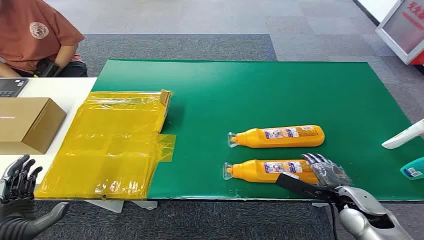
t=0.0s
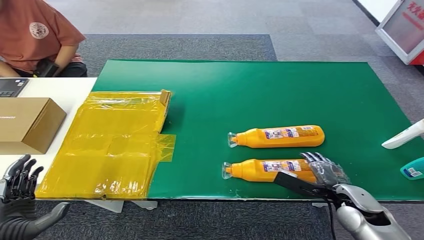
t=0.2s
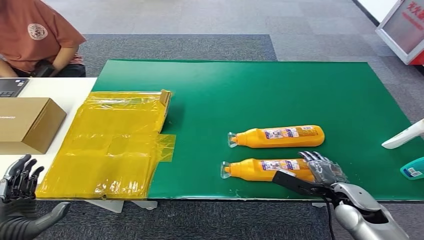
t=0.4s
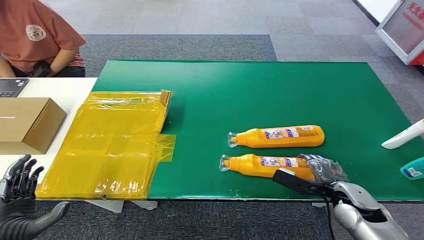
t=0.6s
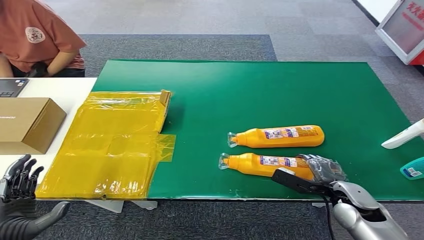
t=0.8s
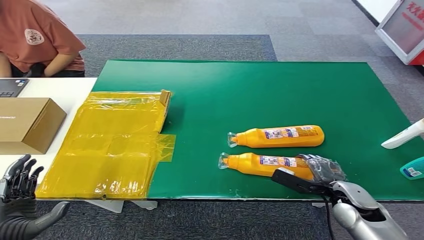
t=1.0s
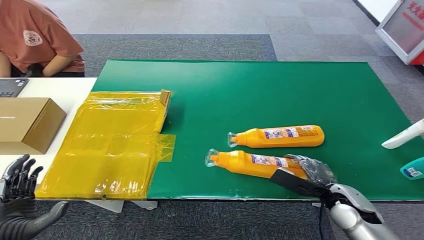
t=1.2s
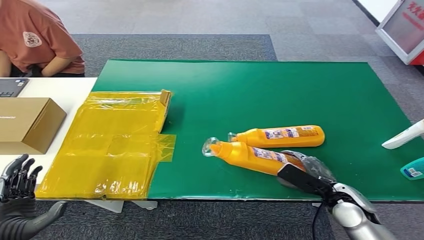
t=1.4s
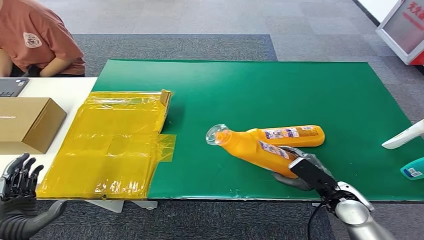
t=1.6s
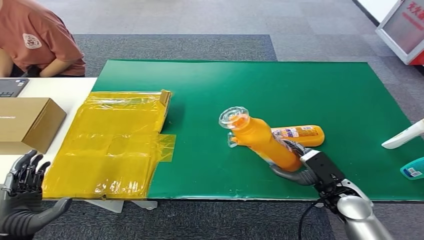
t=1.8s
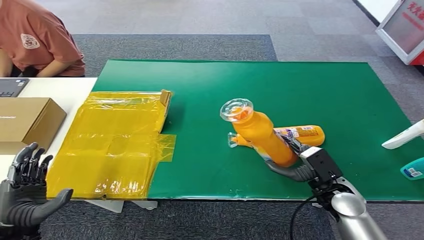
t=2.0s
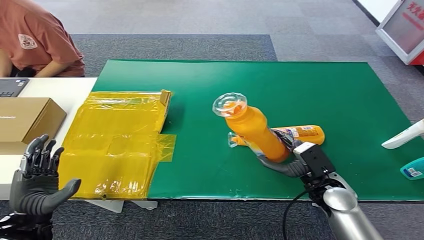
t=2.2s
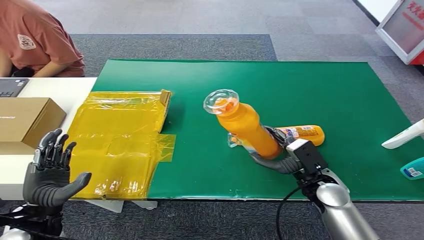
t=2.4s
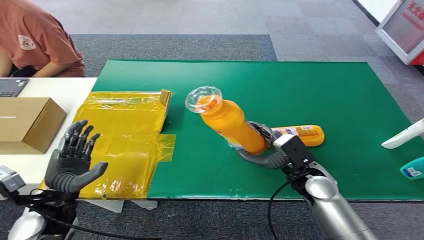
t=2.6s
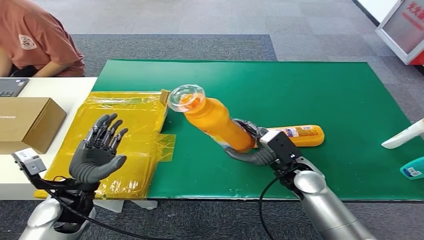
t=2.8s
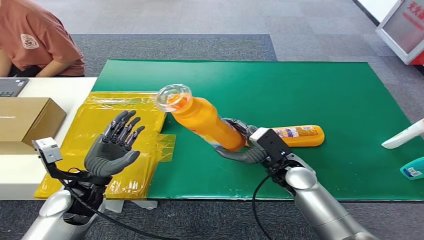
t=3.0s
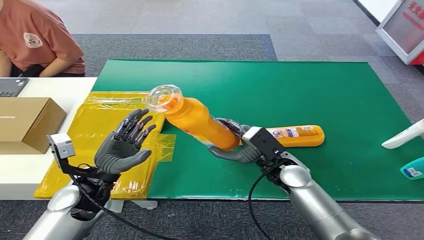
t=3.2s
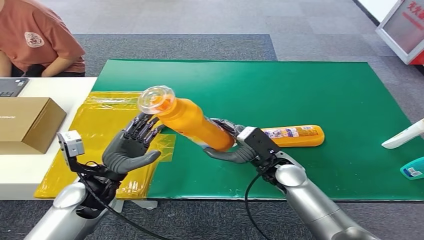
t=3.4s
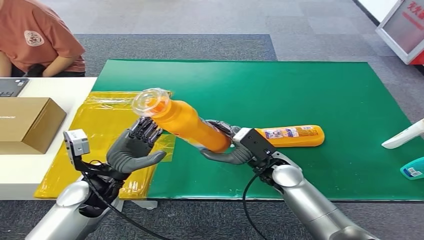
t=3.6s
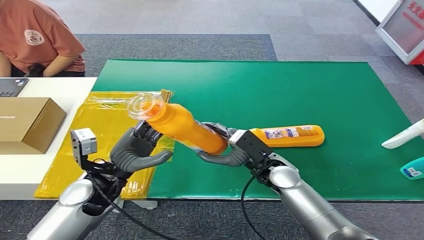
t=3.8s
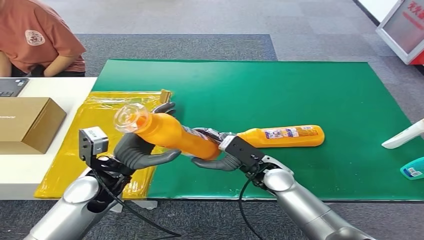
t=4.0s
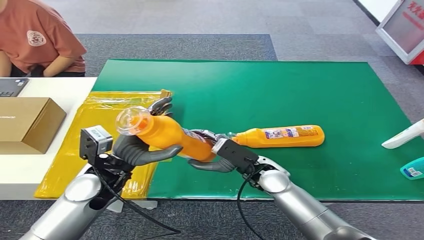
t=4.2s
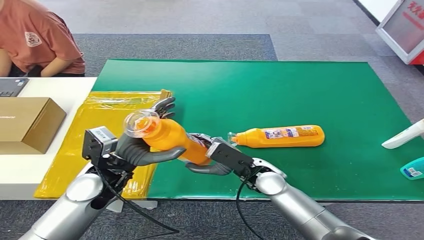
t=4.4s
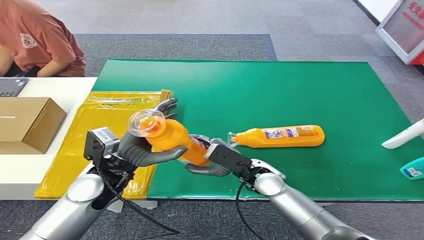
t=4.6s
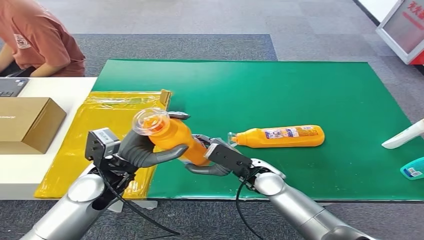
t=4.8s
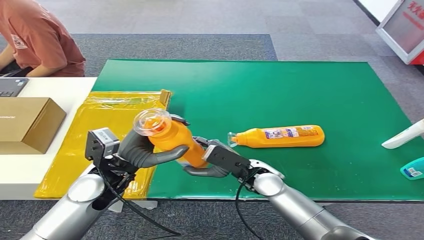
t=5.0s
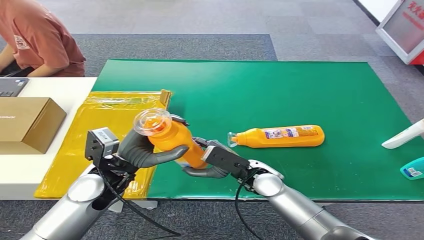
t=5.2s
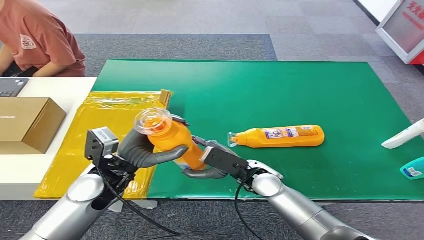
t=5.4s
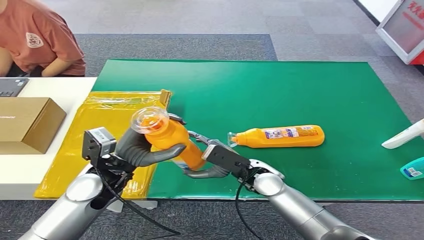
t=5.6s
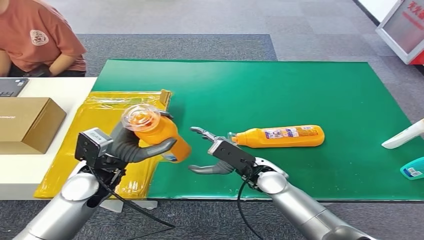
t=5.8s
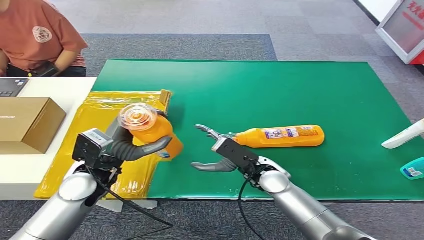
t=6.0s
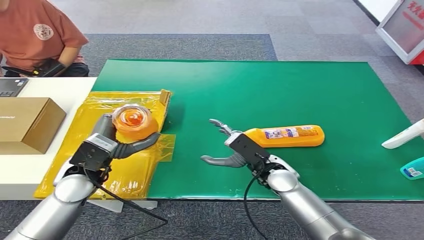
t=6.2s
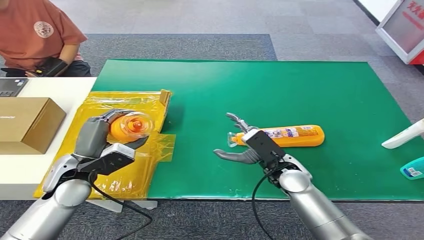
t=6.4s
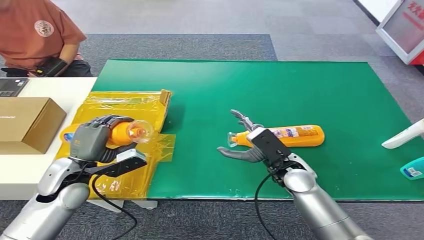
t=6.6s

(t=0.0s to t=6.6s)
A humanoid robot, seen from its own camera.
Step, t=0.0s - t=2.0s: Pick up the bottle from the table.
Step, t=2.2s - t=6.4s: Turn the bottle to the front side.
t=1.6s - t=3.2s: The right hand shifts approximately 15 cm to the left and forward; the left hand shifts some 20 cm forward and to the right.
